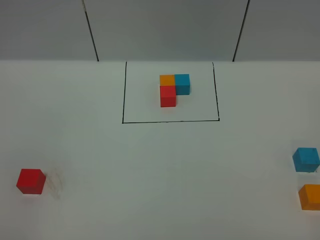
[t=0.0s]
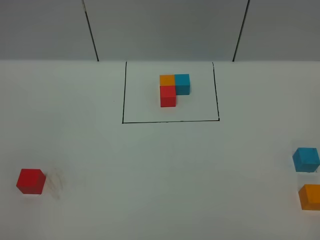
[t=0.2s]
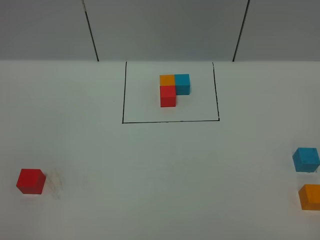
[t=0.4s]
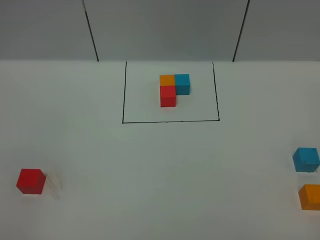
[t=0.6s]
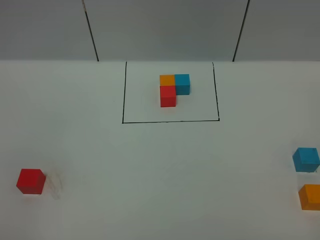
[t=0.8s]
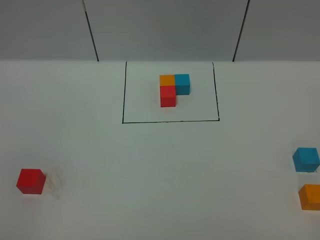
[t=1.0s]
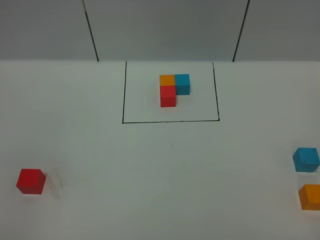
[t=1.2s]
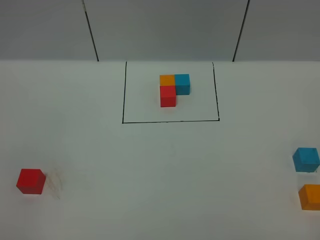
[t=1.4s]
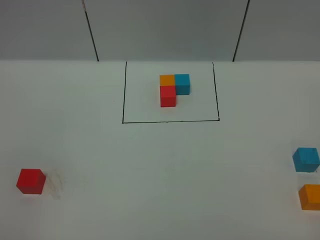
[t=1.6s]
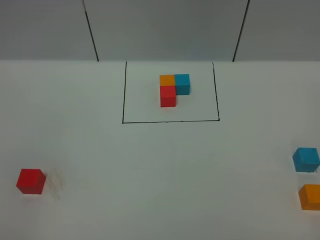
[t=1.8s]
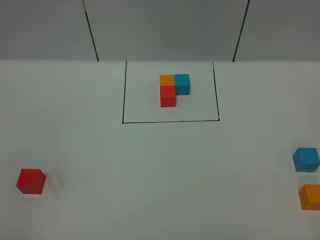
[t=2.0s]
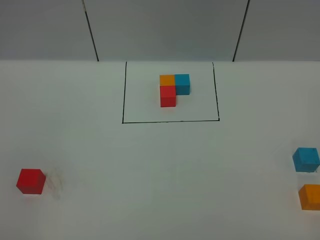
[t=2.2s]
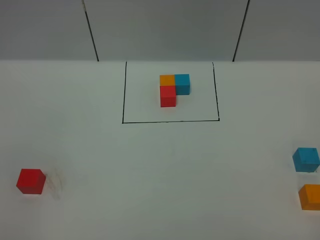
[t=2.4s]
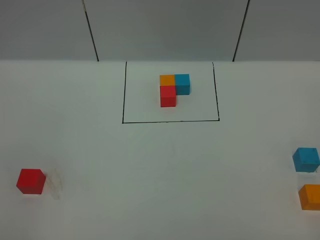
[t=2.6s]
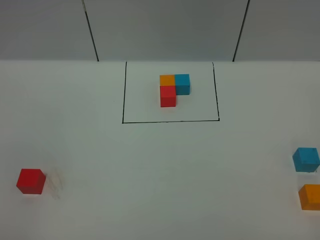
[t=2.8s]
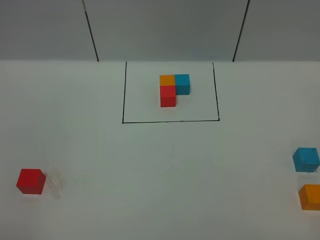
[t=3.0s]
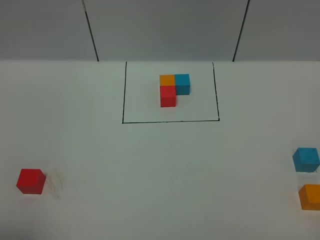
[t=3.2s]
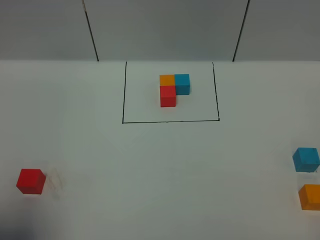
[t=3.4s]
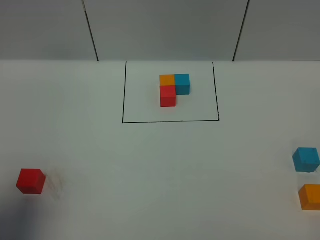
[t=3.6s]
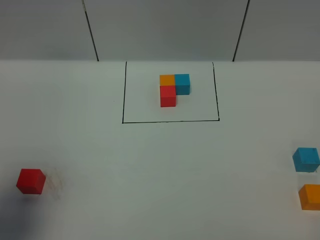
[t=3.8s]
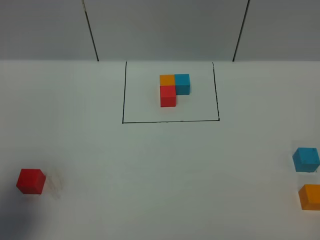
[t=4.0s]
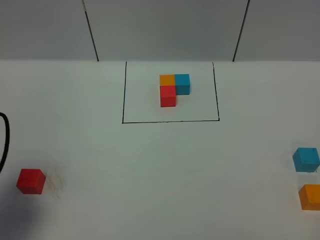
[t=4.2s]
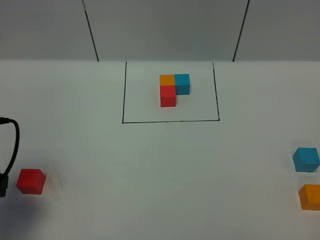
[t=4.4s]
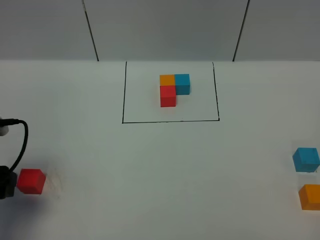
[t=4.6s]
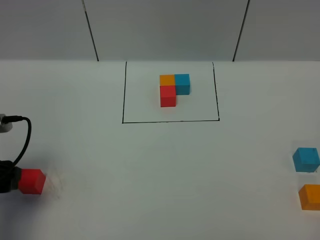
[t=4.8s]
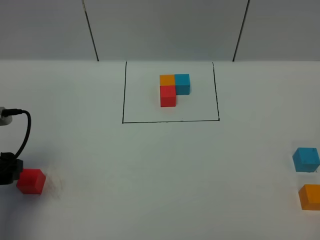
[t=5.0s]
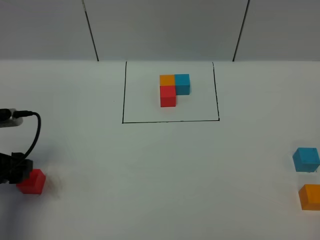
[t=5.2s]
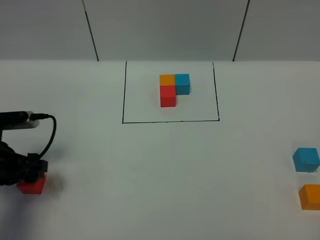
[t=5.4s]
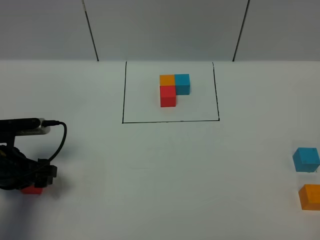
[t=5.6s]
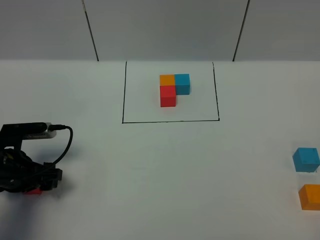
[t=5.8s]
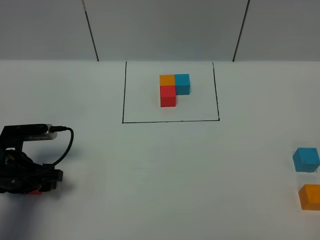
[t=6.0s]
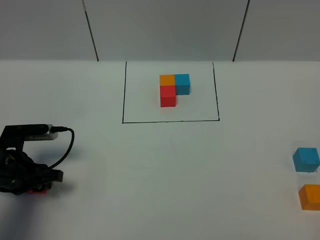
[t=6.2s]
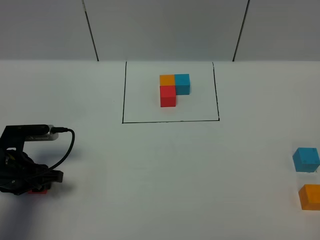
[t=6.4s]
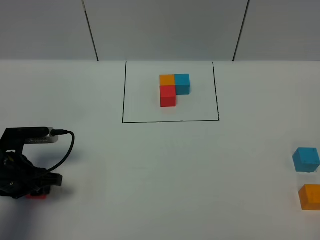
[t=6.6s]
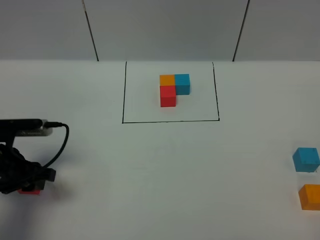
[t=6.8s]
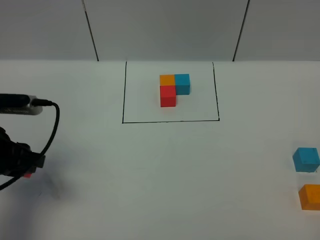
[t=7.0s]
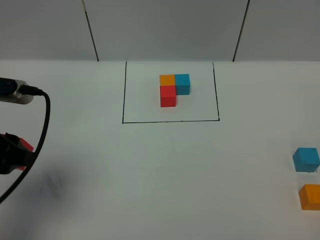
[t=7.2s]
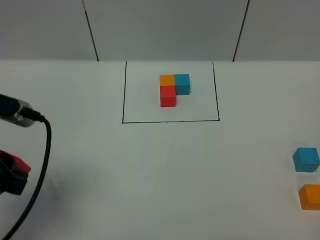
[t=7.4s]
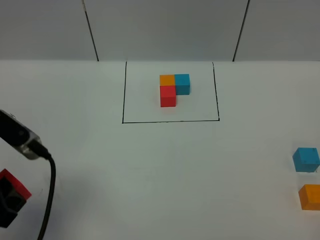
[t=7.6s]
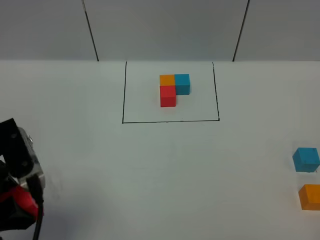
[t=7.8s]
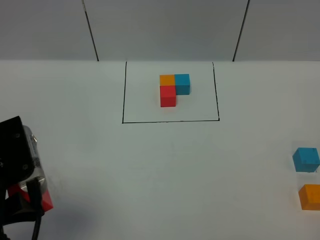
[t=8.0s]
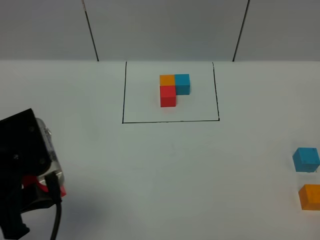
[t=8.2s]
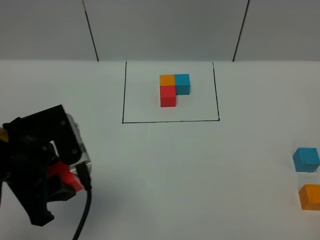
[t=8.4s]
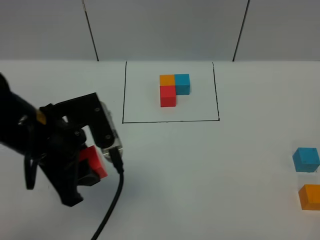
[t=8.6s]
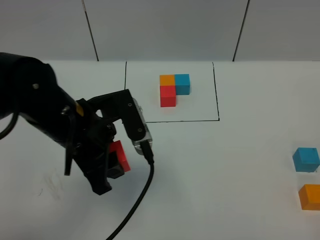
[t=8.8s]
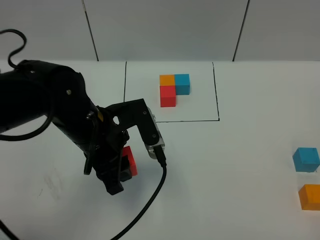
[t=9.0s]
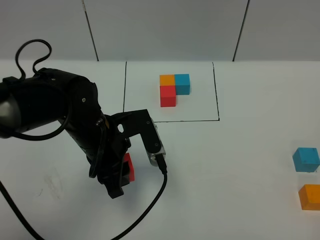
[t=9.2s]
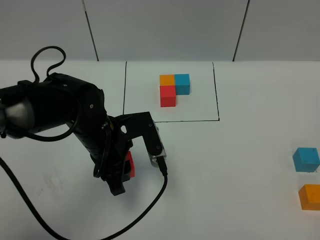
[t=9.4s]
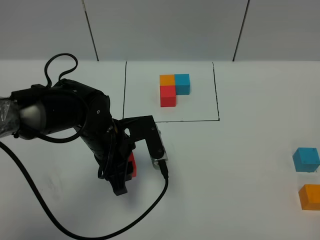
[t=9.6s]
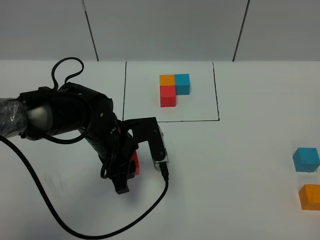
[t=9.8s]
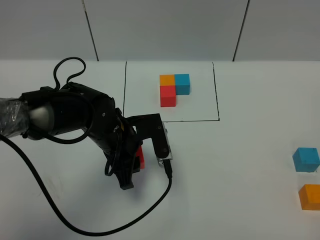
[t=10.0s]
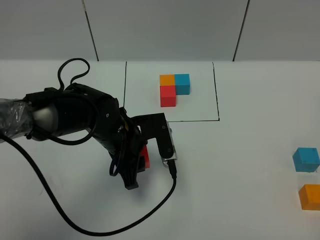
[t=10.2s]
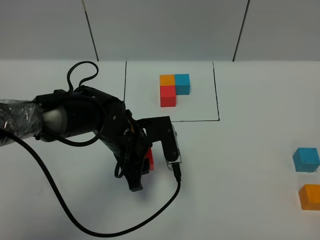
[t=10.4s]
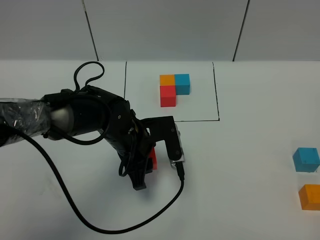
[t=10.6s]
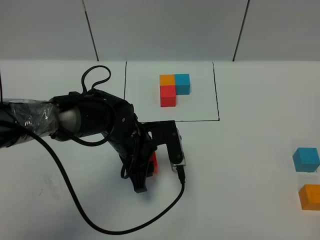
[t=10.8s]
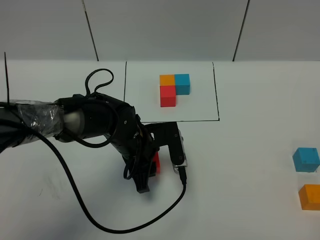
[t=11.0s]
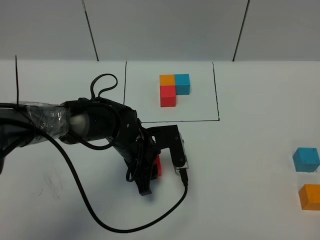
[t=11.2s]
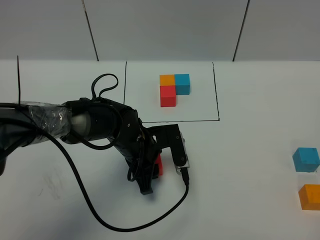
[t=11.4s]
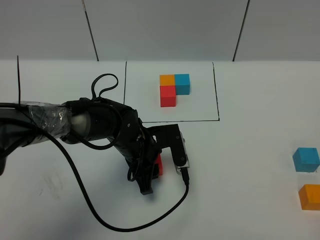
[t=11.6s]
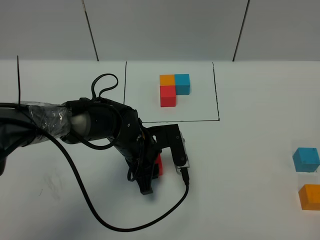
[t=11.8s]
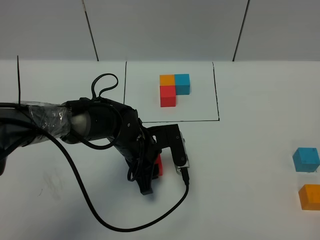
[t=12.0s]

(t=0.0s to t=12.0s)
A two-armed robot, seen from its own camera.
Task of the whole recording: According to the building block template in front, assemble the scattered blocks together.
t=0.0s - t=1.6s: Neither gripper changes place.
t=3.0s - t=4.4s: The left gripper heads forward and downward, covering some 20 cm.
t=4.4s - t=6.0s: The left gripper goes about 15 cm downward and forward.
t=6.0s - t=7.6s: The left gripper moves upward and backward, roughly 20 cm.
t=7.6s - t=9.0s: The left gripper heads to the right, forward and downward, covering some 20 cm.
t=9.0s - t=10.4s: The left gripper goes some 5 cm downward.
t=10.4s - t=12.0s: The grippers make only small movements.

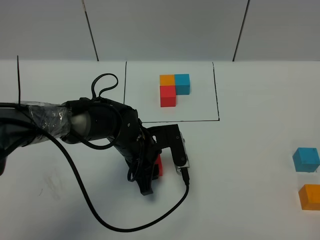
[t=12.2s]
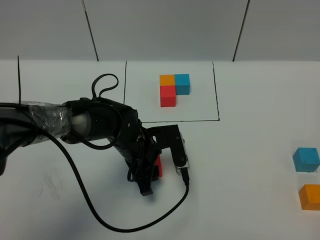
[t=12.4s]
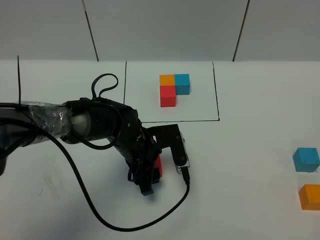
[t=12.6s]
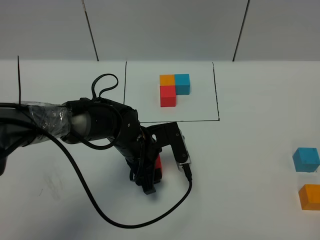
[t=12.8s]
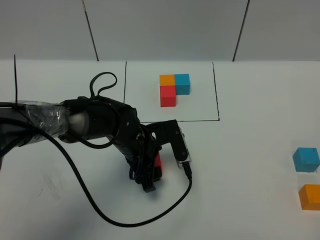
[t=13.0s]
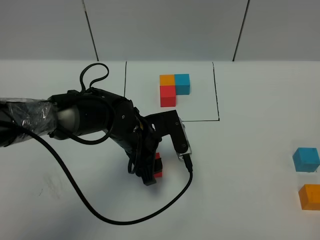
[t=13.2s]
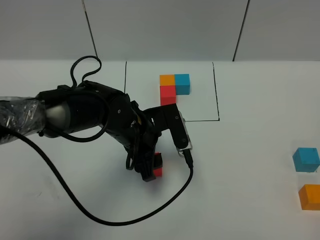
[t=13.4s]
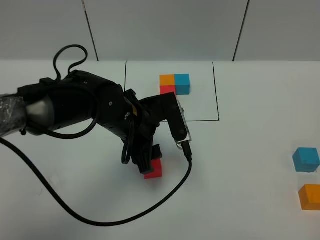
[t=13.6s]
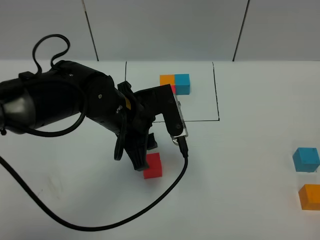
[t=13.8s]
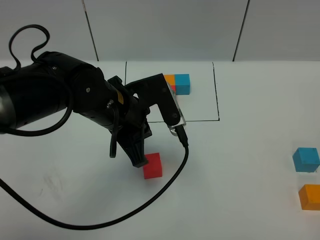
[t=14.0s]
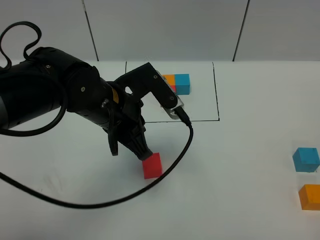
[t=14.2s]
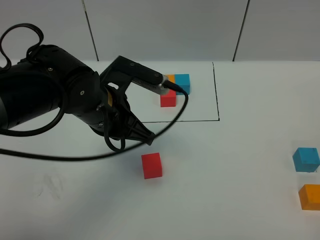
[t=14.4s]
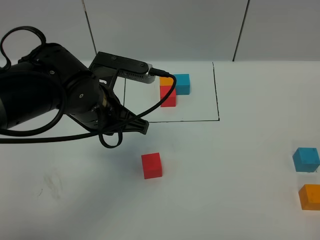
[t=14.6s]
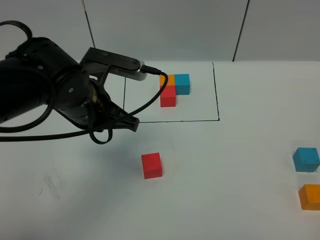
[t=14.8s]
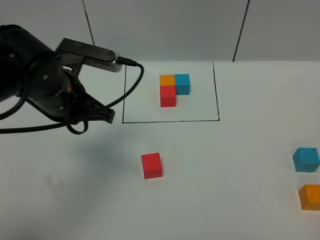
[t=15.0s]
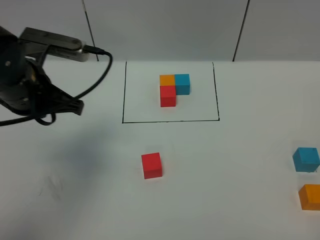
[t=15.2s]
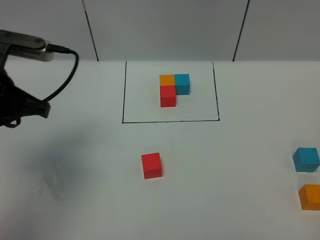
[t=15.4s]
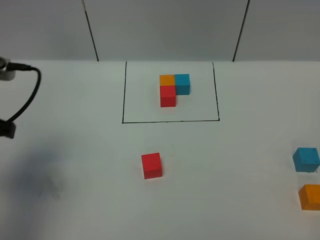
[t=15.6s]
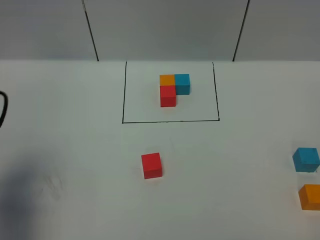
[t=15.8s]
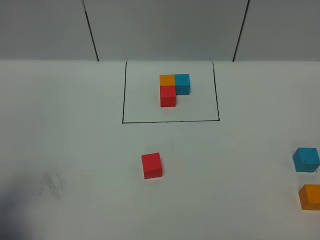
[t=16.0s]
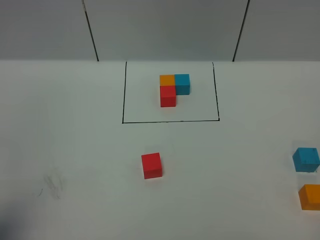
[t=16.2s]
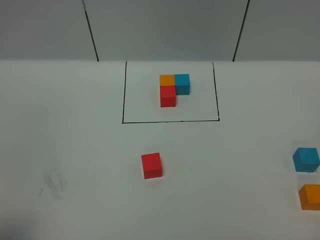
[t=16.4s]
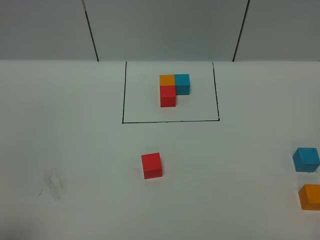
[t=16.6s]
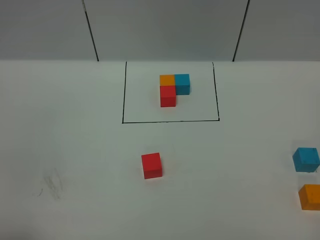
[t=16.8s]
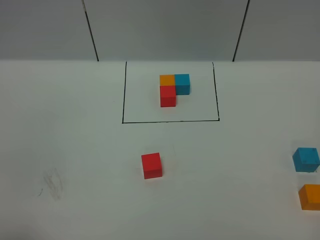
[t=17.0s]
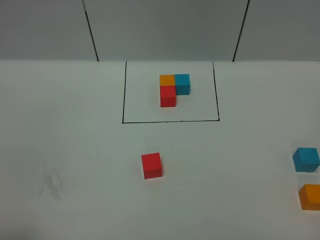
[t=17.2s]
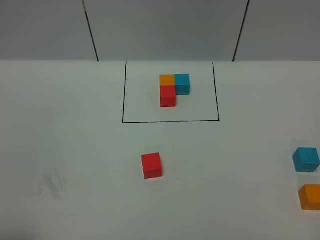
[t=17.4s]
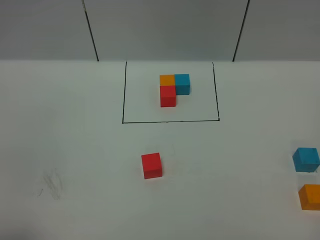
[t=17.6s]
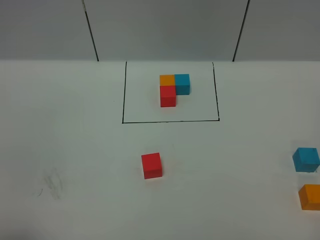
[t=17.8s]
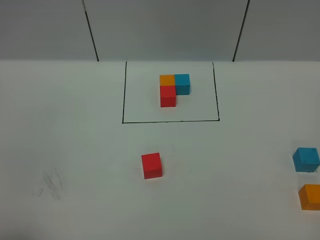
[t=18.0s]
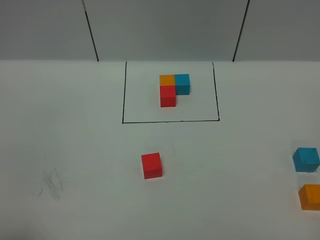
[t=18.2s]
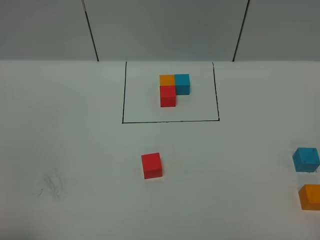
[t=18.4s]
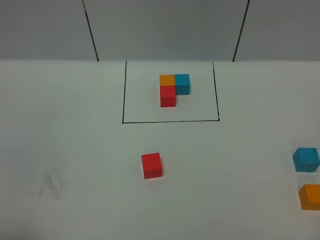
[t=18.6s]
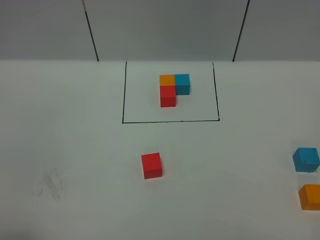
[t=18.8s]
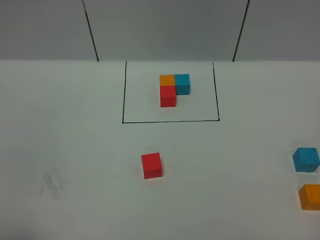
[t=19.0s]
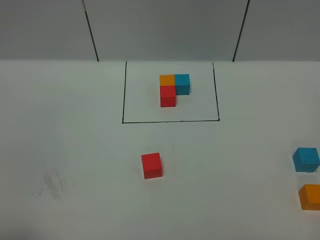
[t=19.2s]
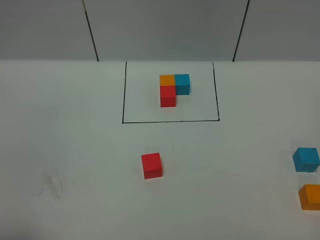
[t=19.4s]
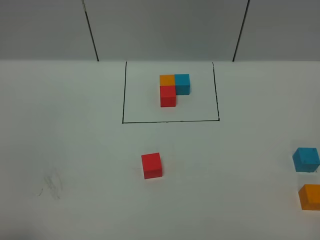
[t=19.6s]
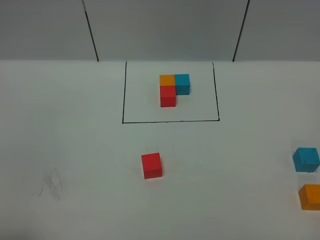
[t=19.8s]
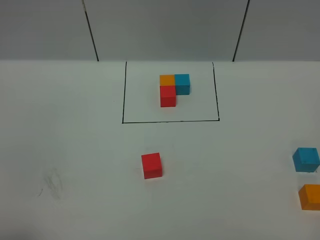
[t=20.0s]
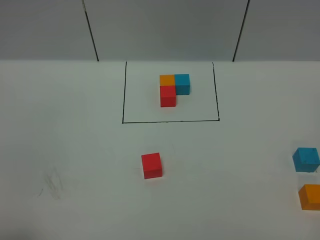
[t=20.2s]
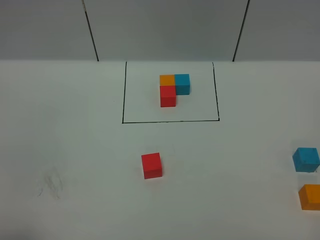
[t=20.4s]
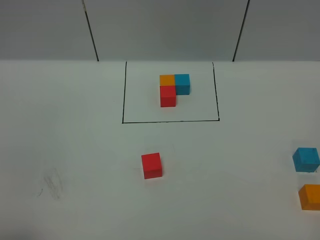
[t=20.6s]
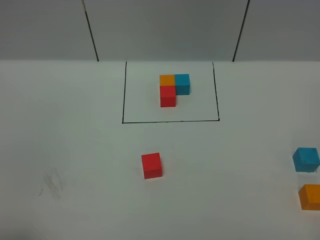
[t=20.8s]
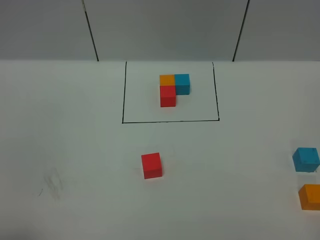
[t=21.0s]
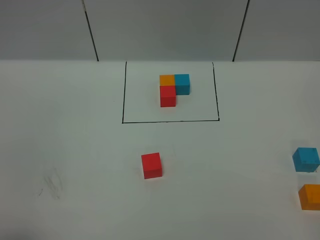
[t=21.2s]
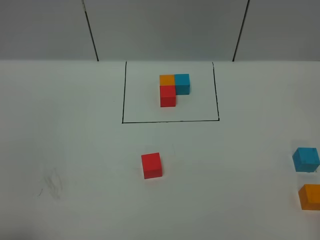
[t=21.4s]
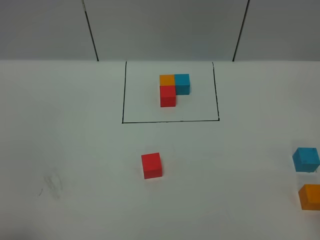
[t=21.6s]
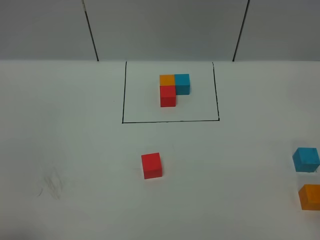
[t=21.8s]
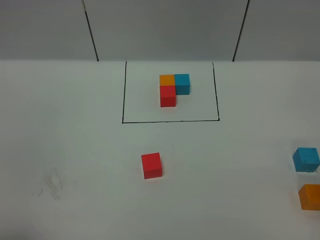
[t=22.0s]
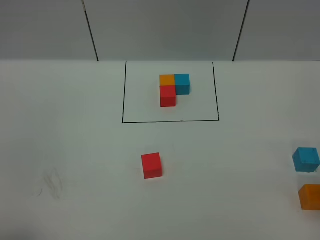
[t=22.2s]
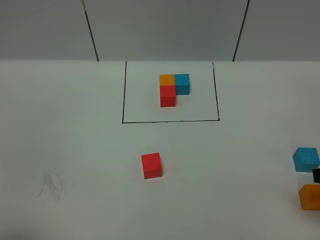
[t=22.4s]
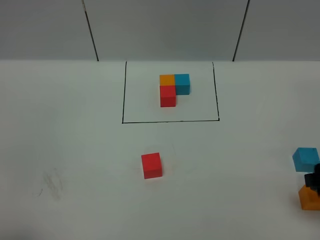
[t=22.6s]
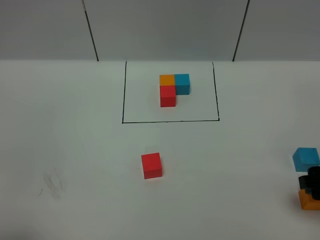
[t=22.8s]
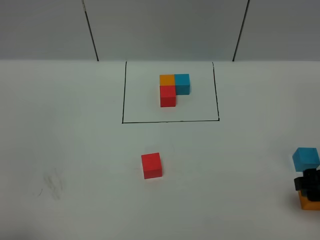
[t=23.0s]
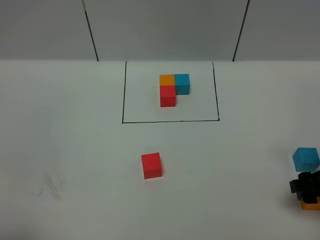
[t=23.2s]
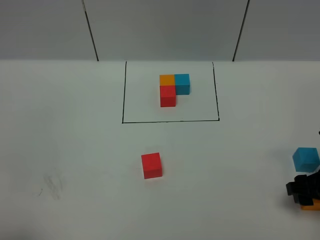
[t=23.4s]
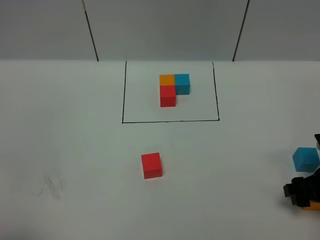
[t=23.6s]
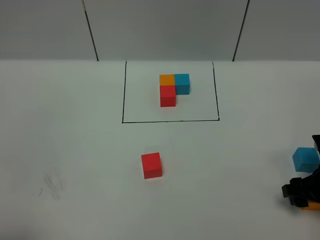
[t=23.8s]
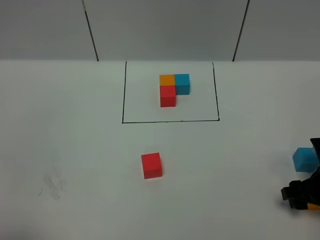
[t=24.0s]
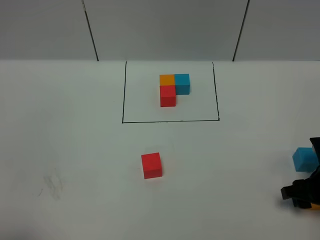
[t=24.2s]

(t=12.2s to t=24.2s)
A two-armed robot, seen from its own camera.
Task of the whole recording: According to the building block template in front, assemble the scattered blocks together.
t=12.2s - t=13.8s: The left gripper shifts some 10 cm upward.
t=13.8s - t=15.2s: The left gripper is displaced to the left and upward by some 15 cm, and closes its fingers.
t=15.2s - t=16.6s: The left gripper goes about 30 cm backward and to the left.
t=18.2s - t=19.8s: Neither gripper changes place.
t=21.2s - t=22.6s: The right gripper goes about 20 cm downward and forward.
t=22.6s - t=24.2s: The right gripper moves downward, roughly 10 cm.
